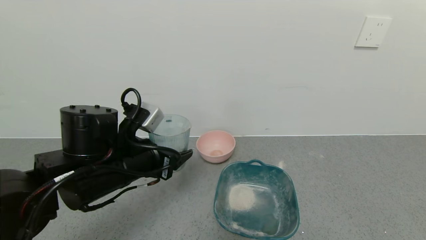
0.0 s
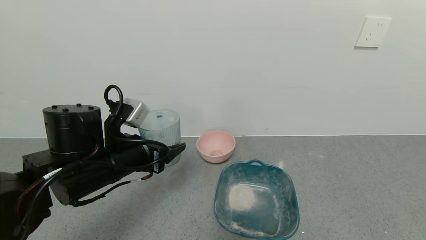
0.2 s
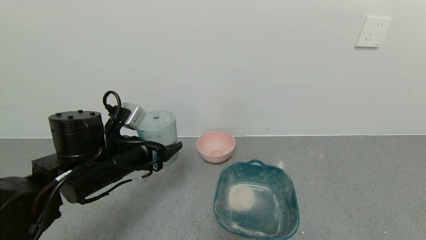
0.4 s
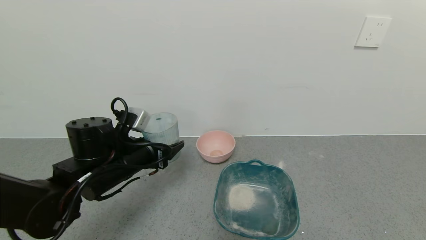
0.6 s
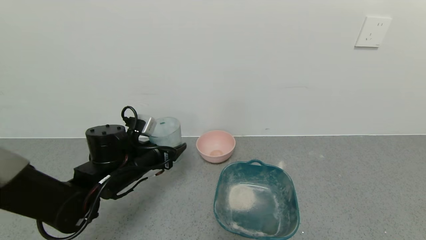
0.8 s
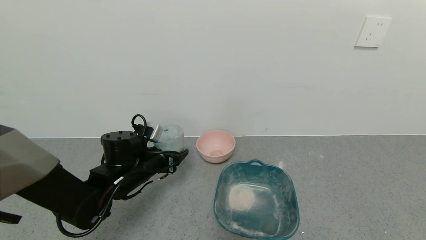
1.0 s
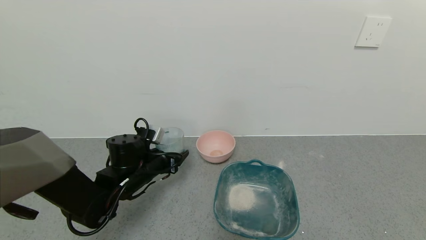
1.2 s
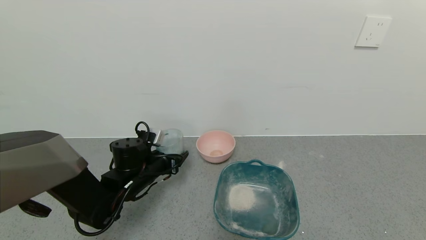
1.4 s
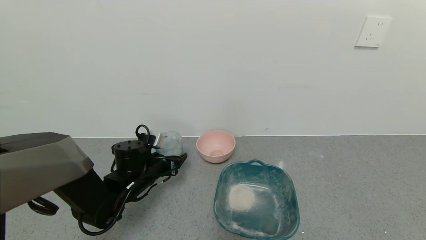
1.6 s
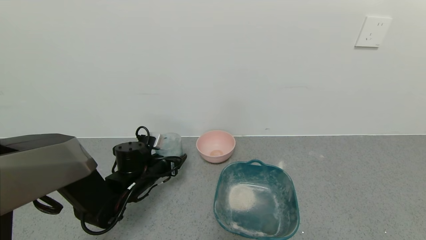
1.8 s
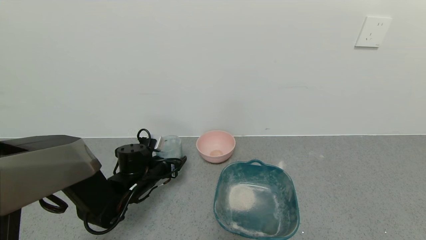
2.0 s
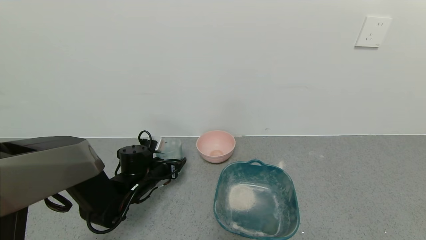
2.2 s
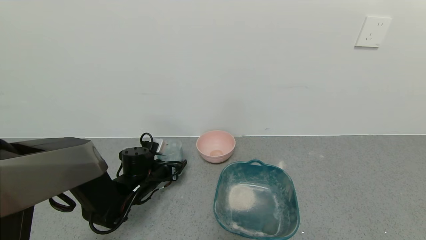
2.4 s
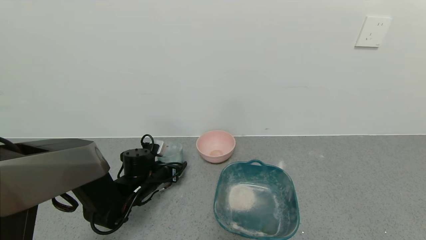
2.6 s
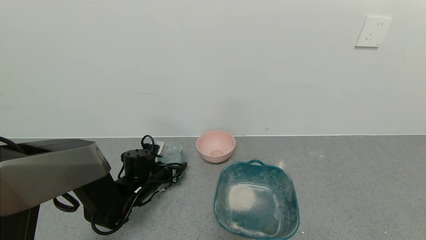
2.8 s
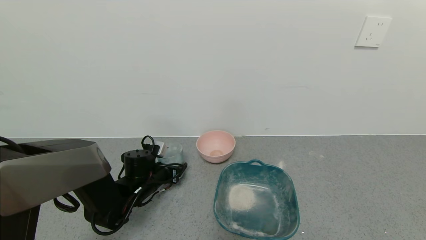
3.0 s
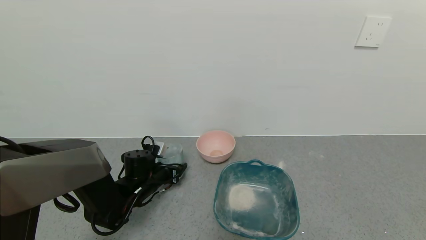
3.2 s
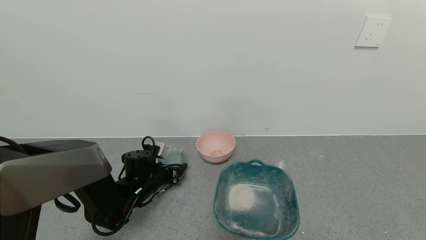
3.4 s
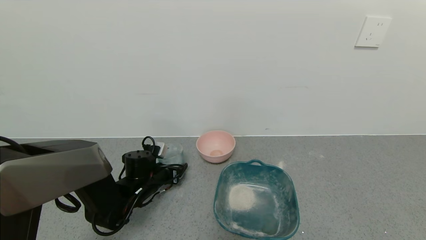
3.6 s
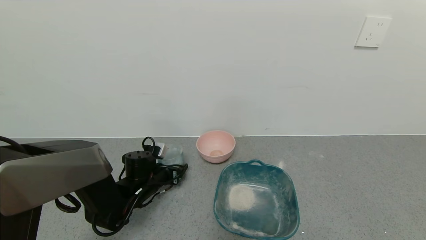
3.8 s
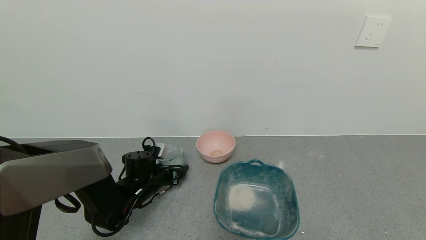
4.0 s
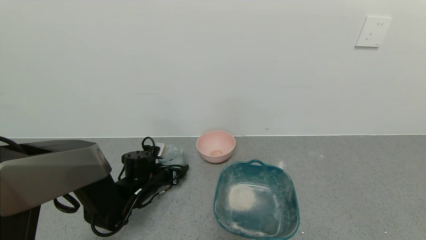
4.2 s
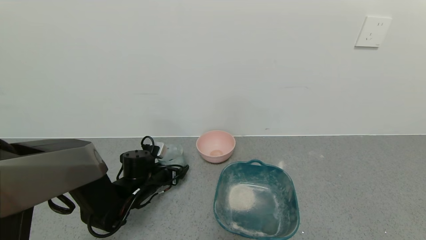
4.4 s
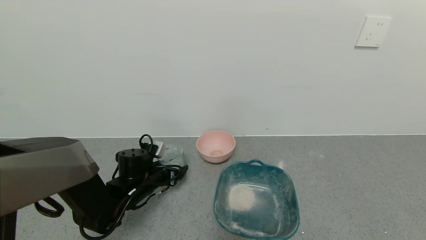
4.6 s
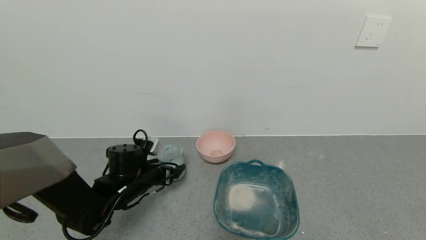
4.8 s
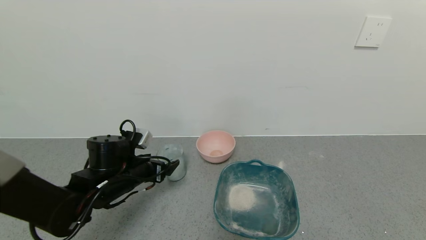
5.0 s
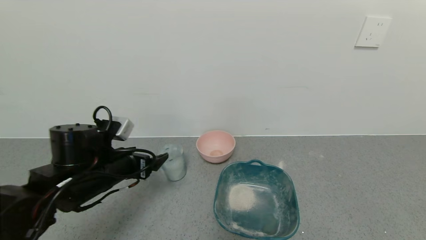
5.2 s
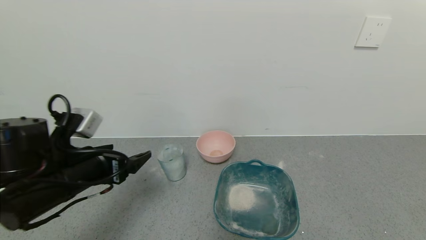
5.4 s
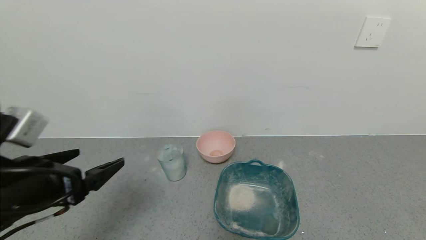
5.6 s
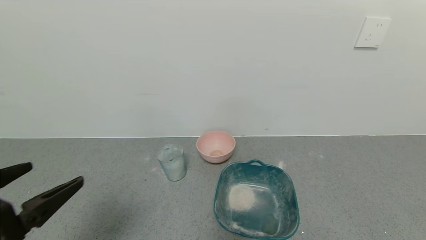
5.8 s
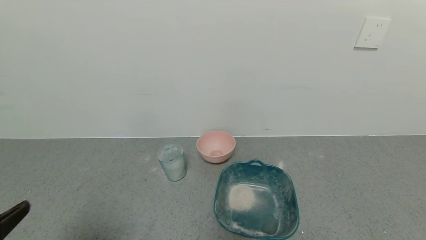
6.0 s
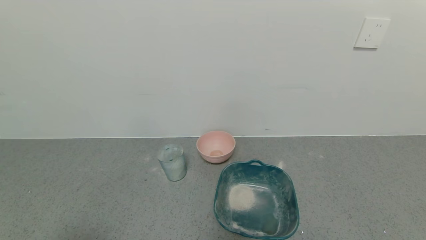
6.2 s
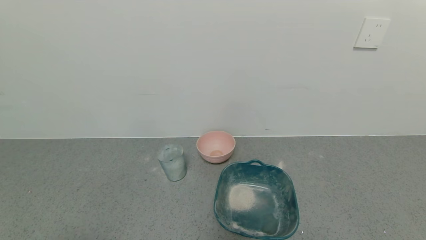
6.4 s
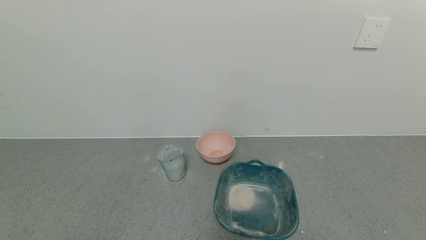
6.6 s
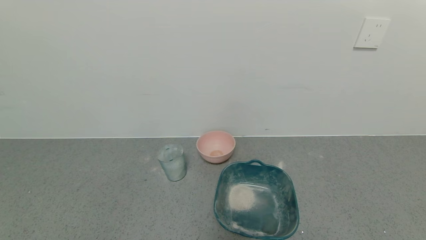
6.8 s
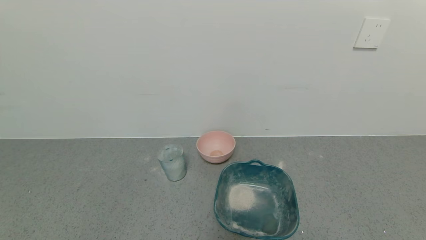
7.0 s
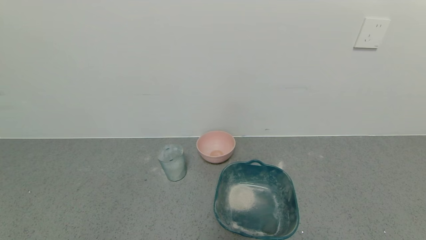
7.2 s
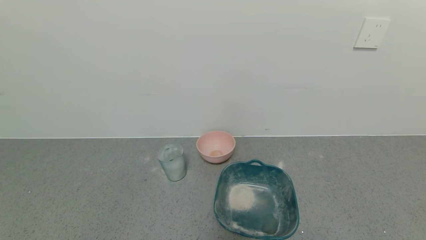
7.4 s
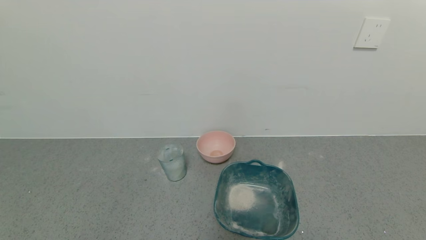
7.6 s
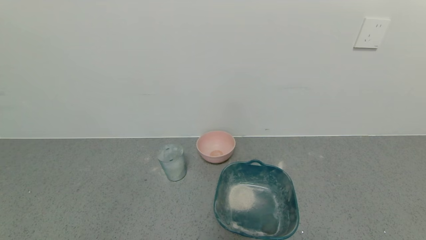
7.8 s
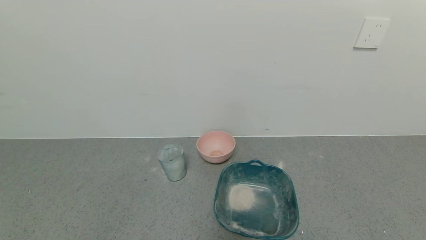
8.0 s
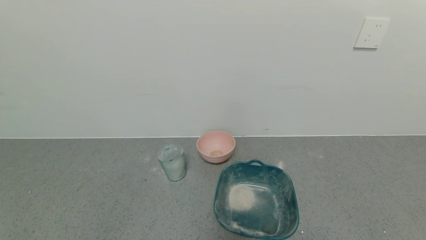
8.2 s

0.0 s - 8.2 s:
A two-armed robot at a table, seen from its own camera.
Task of the whole recording: use a gripper to pick up the cup and pour the powder into a bowl or tray.
Step, 0.0 s - 4.0 s: Place blue cup with milk powder on the table with left gripper.
0.0 s - 1.6 s: The left gripper goes roughly 15 cm downward and forward.
1.6 s - 3.2 s: The grippers move only a little.
3.2 s - 5.0 s: The left gripper is displaced upward and backward by approximately 10 cm, and opens.
5.0 s - 6.6 s: The left gripper travels backward by some 35 cm.
